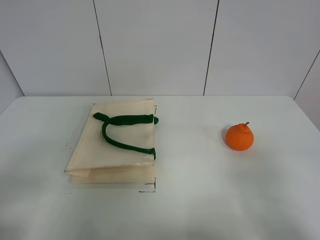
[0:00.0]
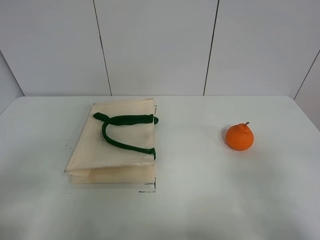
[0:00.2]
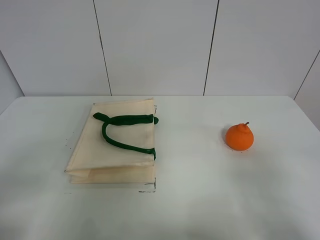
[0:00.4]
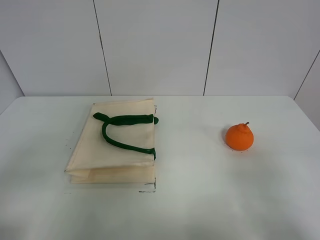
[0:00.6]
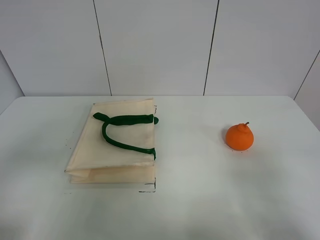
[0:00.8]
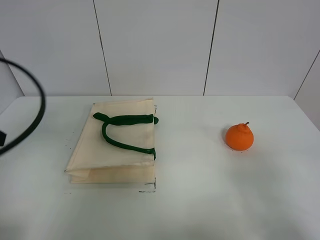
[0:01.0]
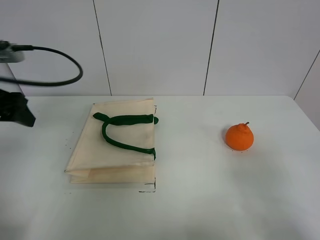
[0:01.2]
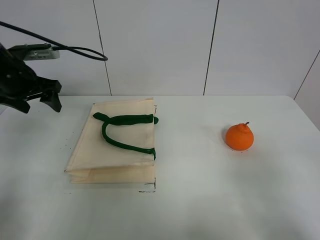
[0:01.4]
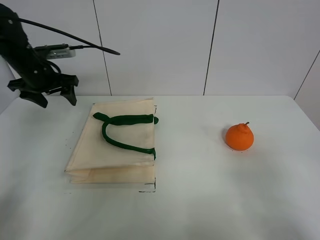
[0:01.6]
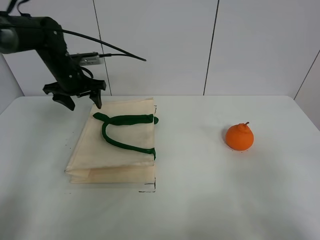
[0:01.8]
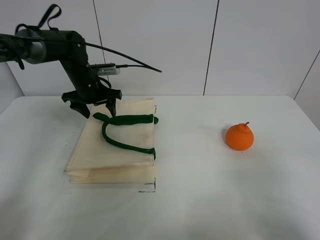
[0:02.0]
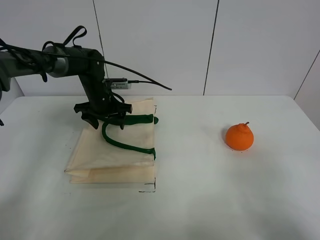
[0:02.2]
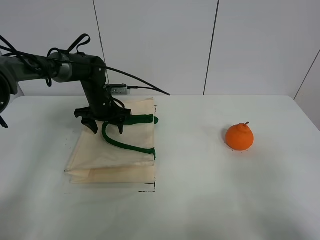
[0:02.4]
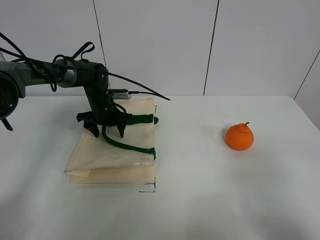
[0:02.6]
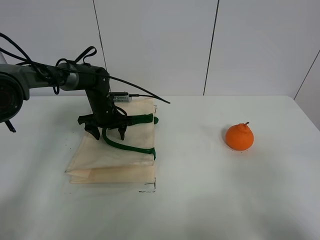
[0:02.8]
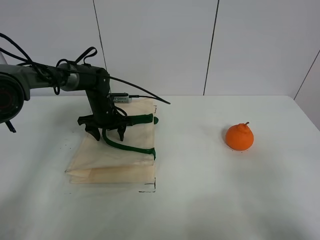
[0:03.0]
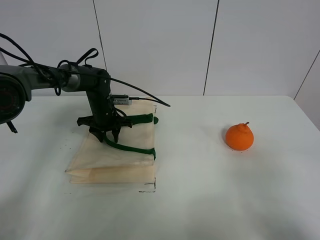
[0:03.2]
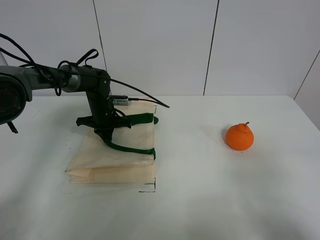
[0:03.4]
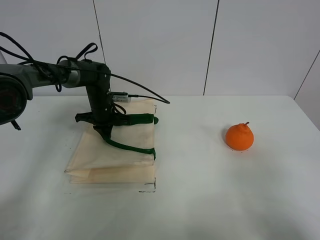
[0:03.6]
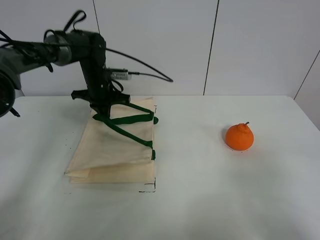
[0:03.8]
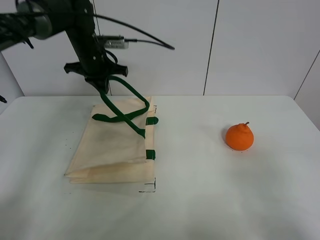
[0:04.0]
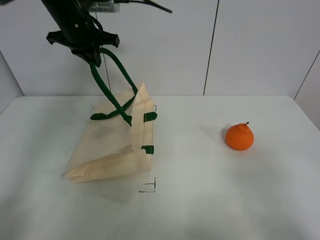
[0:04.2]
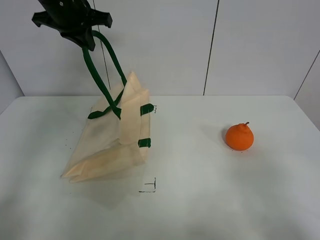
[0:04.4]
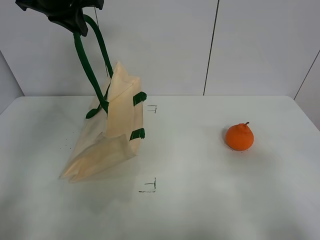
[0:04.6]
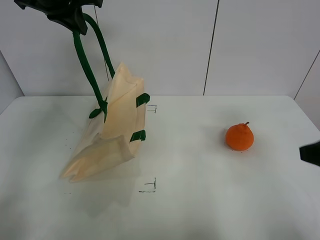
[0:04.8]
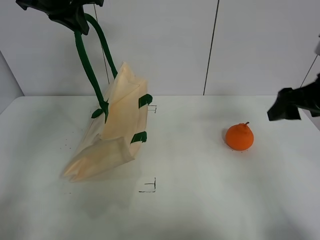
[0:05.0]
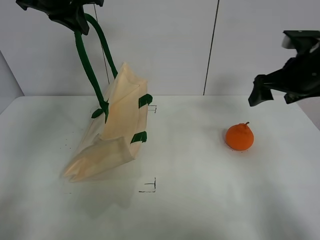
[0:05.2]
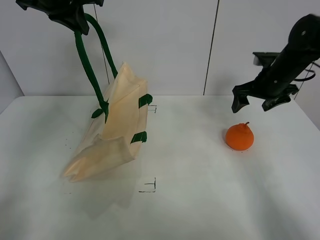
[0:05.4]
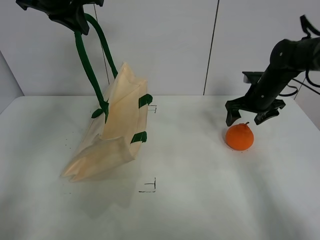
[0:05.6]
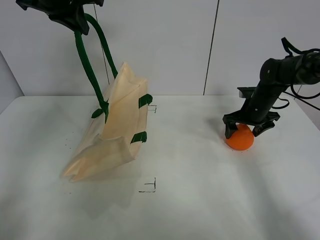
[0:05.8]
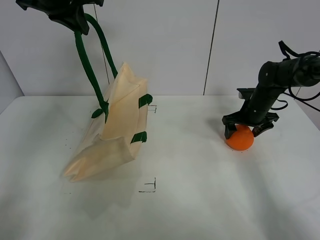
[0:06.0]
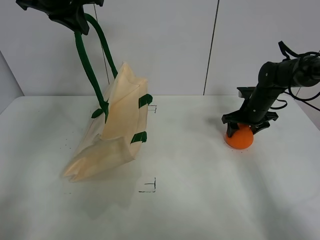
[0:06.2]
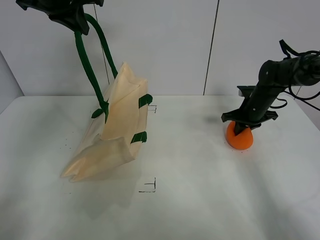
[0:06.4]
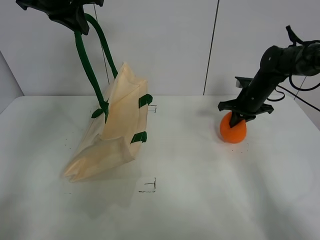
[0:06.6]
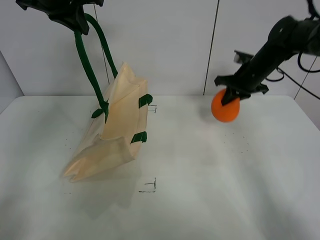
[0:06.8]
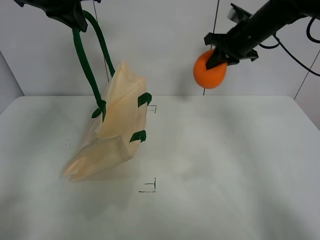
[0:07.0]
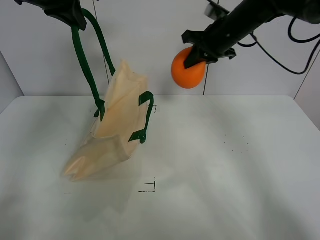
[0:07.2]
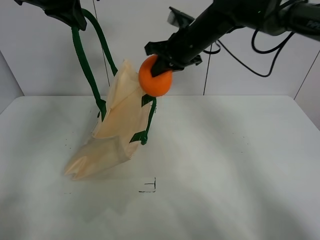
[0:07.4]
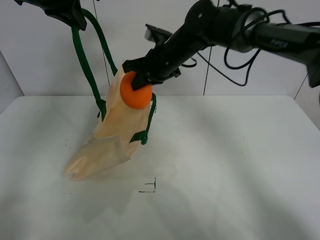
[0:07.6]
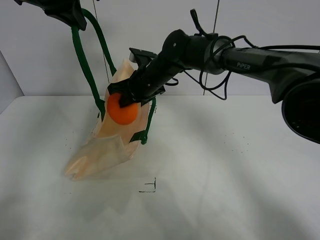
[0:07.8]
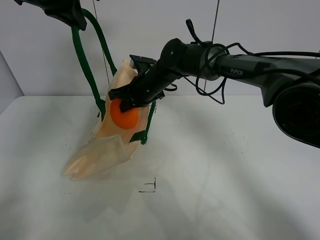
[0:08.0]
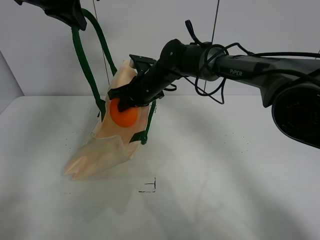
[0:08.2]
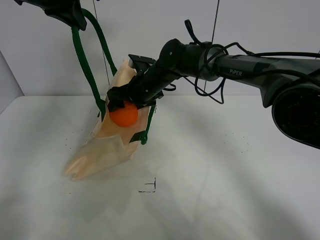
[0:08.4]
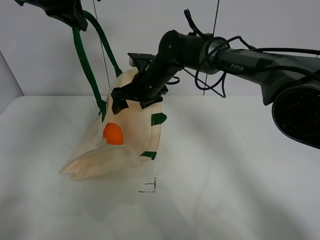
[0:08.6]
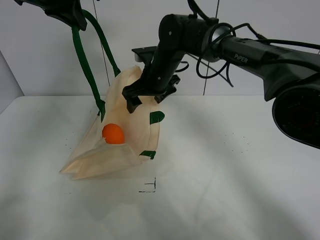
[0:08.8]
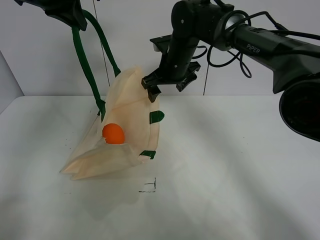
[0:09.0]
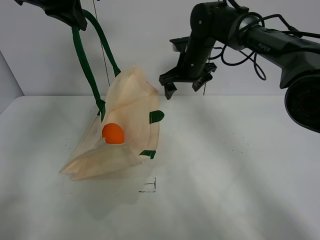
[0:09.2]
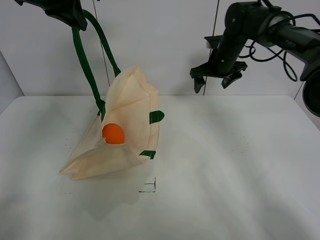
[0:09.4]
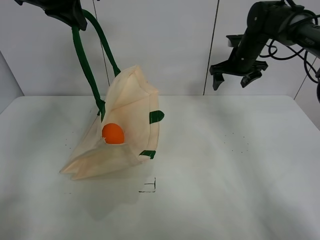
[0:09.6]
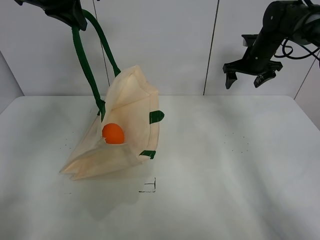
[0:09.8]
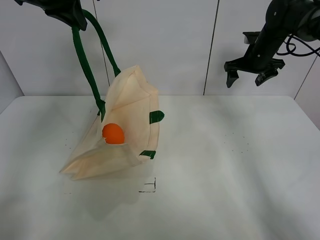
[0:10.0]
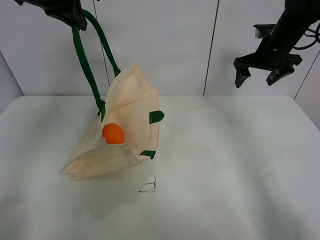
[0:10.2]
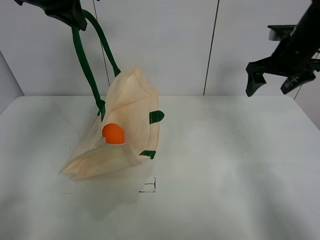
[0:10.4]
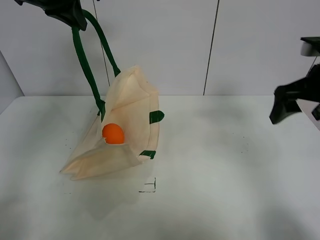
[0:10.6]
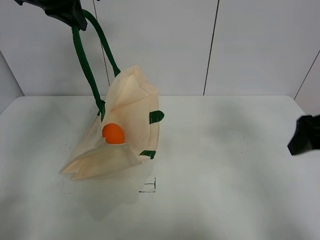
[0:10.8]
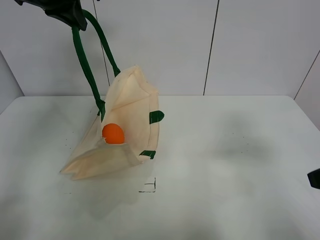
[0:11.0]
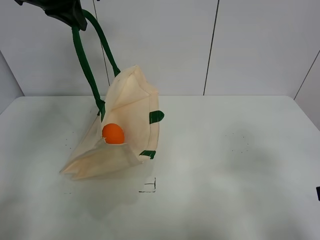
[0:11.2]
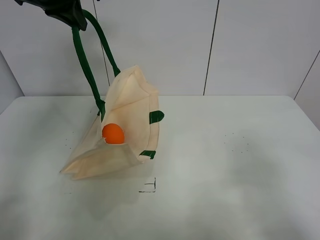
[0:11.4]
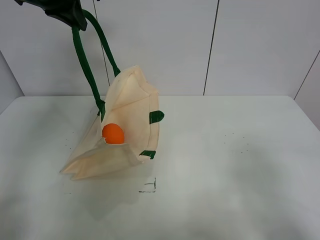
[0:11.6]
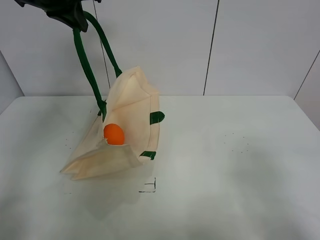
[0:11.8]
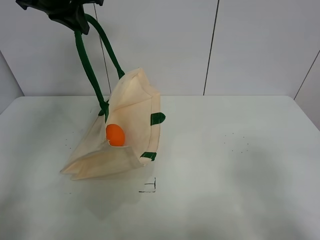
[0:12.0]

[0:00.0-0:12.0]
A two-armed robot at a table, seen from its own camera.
Task of the whole recording: open the white linen bag and put the orange in the bag.
Step, 0:00.0 to 0:04.4: Lift the handbag with left gripper.
Step, 0:04.6 to 0:06.2: Grasp the orange with right gripper.
Step, 0:06.4 to 0:08.6: Place the orange in the handbag with right gripper.
0:01.6 to 0:03.0: The left gripper shifts some 20 cm downward, to the right and forward.
0:03.0 to 0:04.4: The left gripper travels upward by roughly 25 cm, and closes.
0:04.4 to 0:06.0: The left gripper is displaced upward by some 5 cm. The right gripper moves forward, some 40 cm.
0:06.0 to 0:07.6: The right gripper is displaced to the left and upward by about 25 cm, and closes up.
0:07.6 to 0:09.0: The right gripper opens up.
0:09.0 to 0:10.4: The right gripper heads to the right, covering about 25 cm.
0:10.4 to 0:12.0: The right gripper moves backward, some 40 cm.

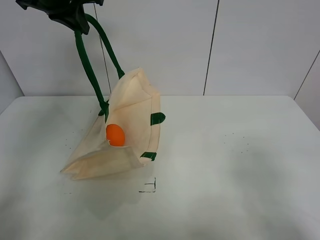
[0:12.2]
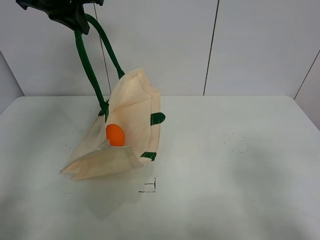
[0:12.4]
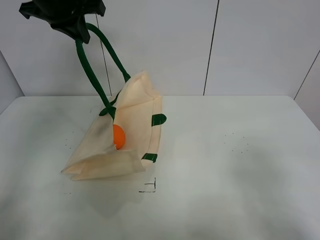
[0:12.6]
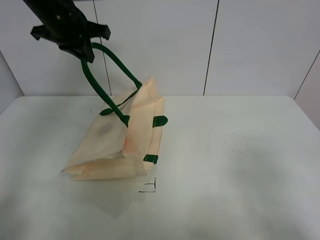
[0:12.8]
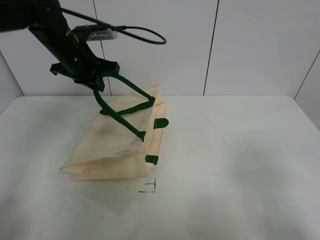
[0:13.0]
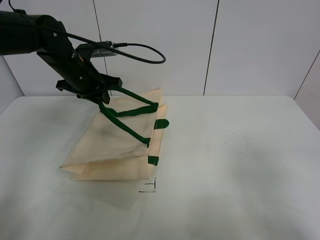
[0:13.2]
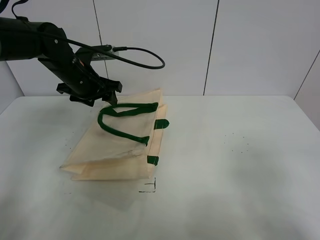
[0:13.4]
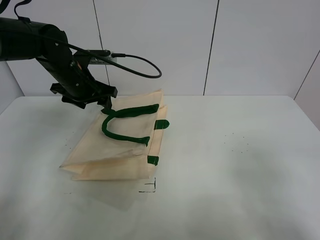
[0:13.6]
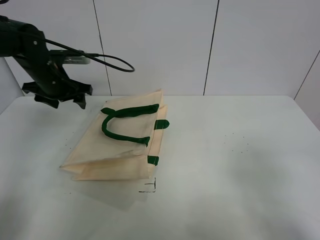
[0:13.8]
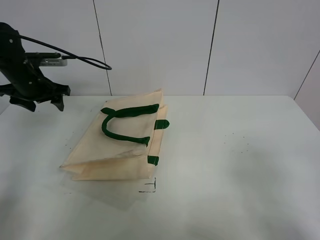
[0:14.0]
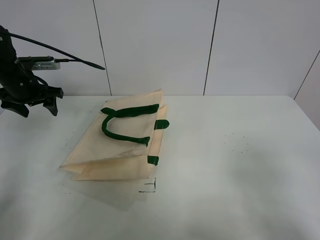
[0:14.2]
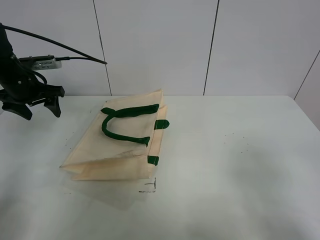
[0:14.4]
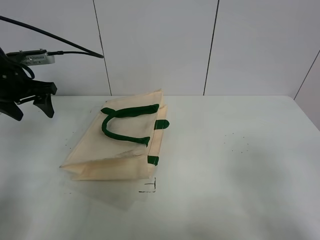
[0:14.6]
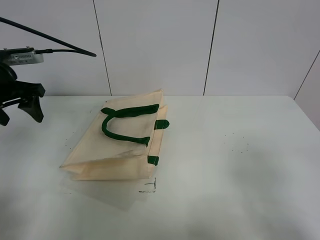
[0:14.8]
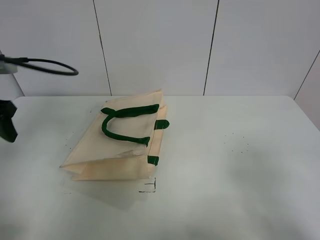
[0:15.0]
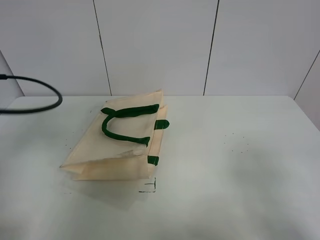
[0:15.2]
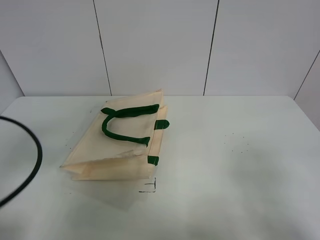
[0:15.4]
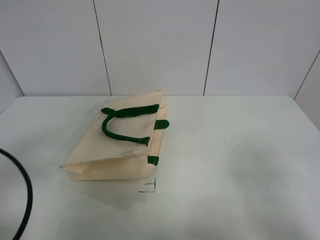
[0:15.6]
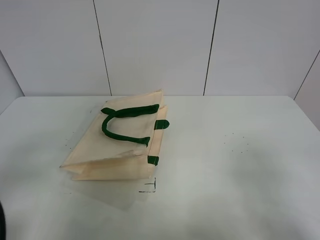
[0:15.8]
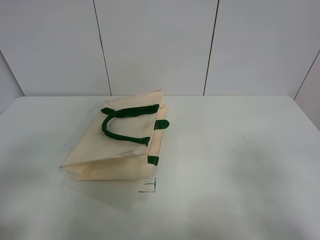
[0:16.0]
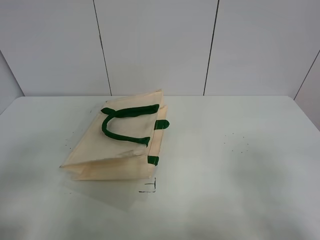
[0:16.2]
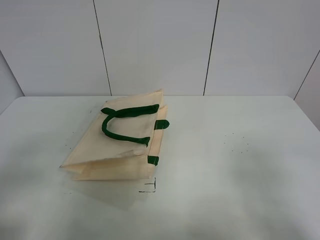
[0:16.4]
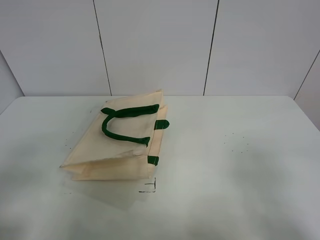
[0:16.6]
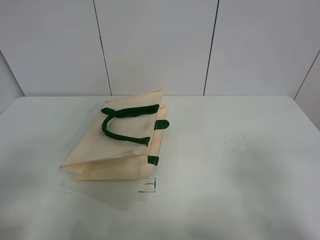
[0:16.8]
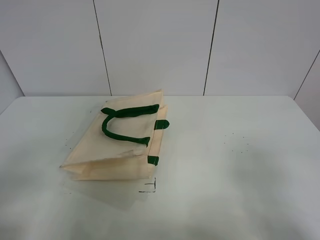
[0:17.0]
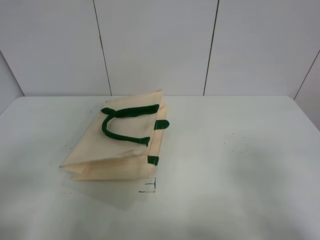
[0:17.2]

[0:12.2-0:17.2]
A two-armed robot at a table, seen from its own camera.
Task of the whole recording: open the white linen bag and put the orange in the bag.
0:12.2 to 0:13.8: The left gripper is displaced downward by roughly 20 cm, and opens.
0:13.8 to 0:15.6: The left gripper shifts about 30 cm backward.
0:15.6 to 0:17.2: The left gripper shifts about 10 cm backward.
